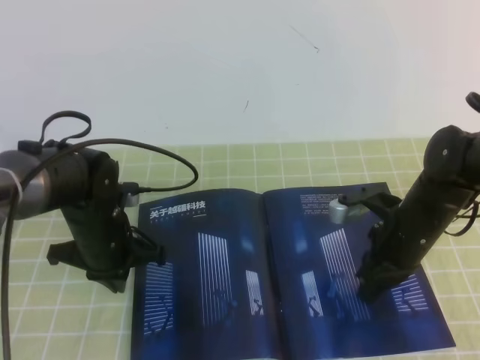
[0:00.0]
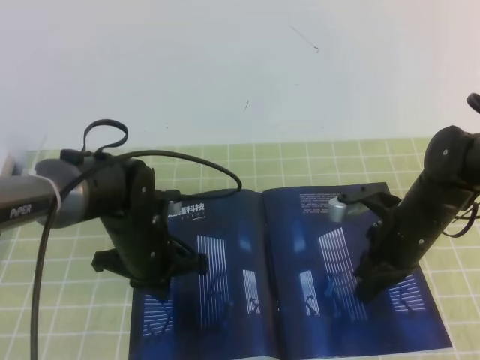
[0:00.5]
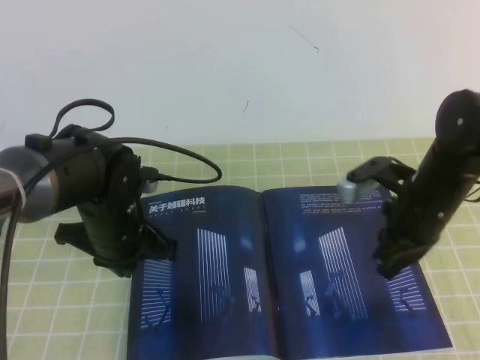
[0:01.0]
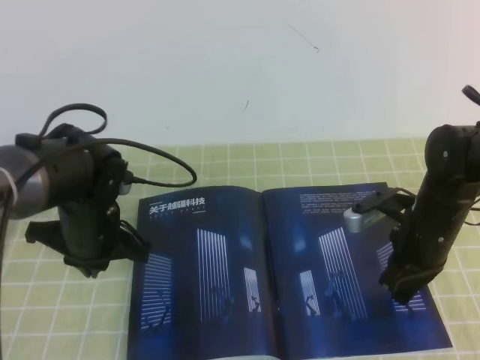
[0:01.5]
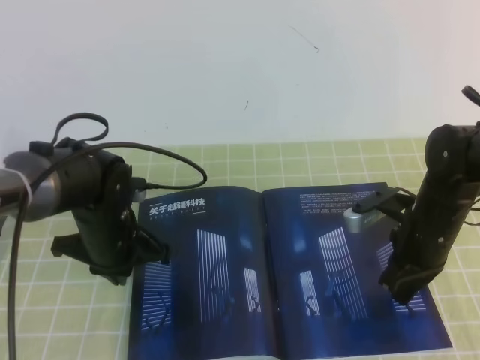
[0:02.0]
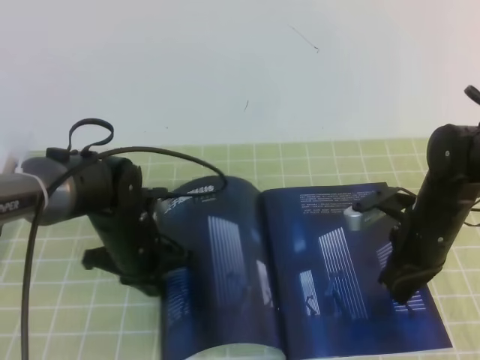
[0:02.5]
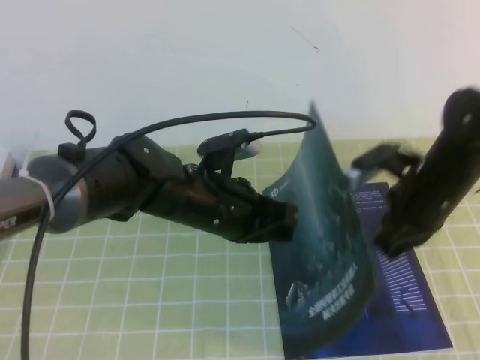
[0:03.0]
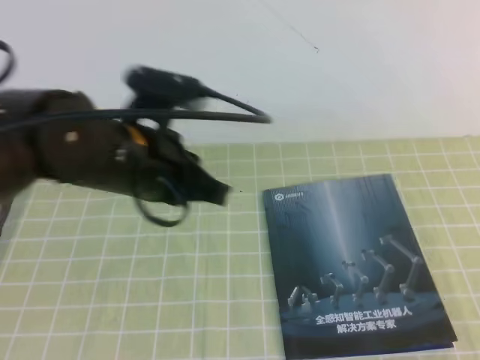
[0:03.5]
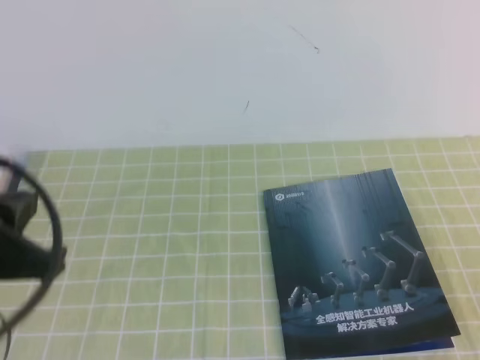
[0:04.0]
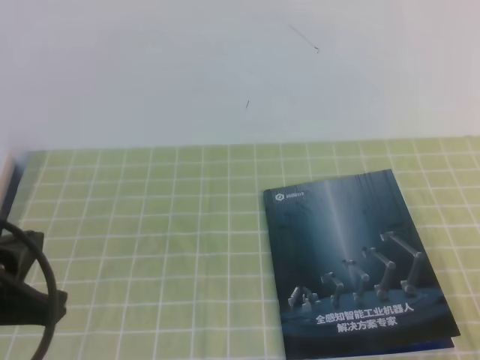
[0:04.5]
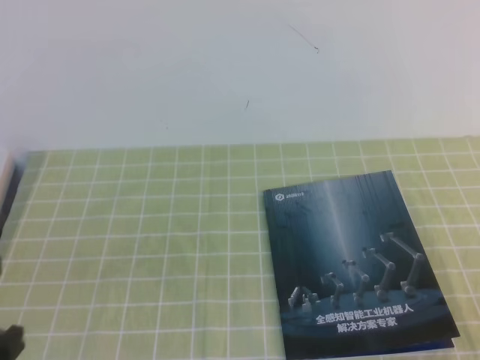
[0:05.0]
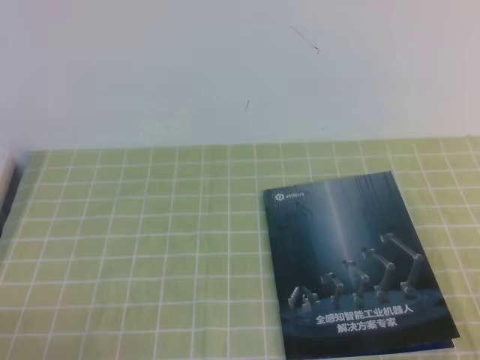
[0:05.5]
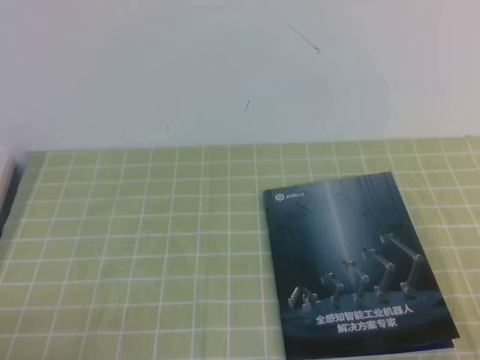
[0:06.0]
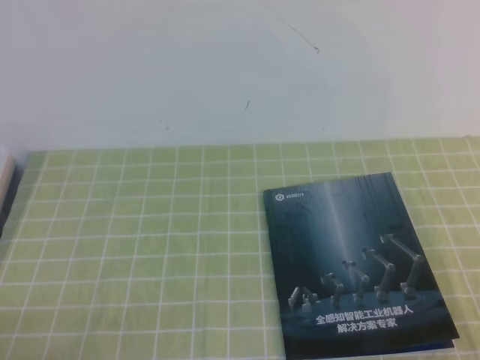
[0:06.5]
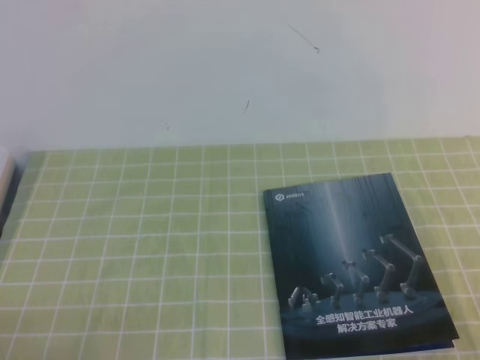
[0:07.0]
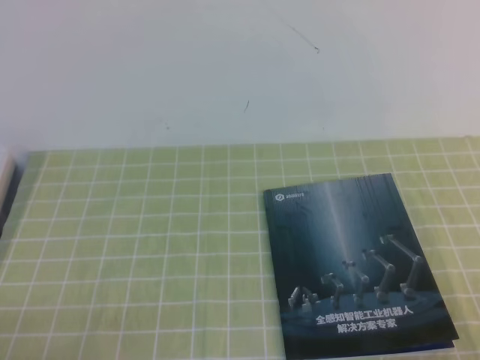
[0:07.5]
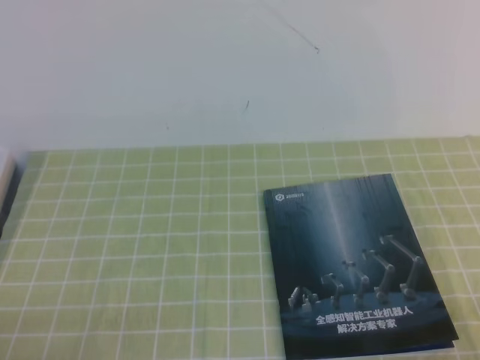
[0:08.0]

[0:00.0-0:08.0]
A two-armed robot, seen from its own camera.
Task of the whole recording: on the green tablecloth, hold the book with one hand and close it with the other.
Step, 0:00.0 to 0:08.0: Close the open book.
0:00.0 to 0:02.0: The grippers make only small movements.
0:02.0 to 0:04.0: The right gripper heads backward and upward, covering roughly 30 cm. The left gripper goes roughly 25 cm upward and backward.
0:04.0 to 0:06.0: The left gripper moves downward and backward, about 20 cm, while the right gripper moves downward, roughly 5 cm.
